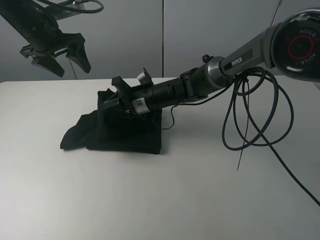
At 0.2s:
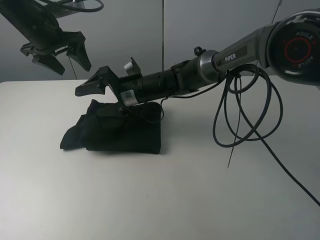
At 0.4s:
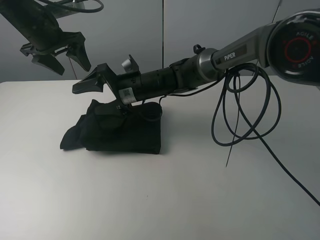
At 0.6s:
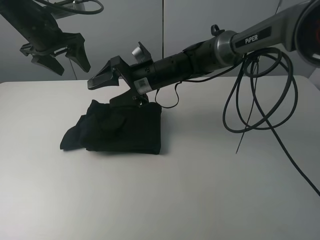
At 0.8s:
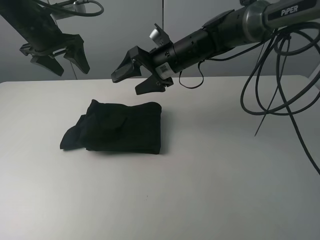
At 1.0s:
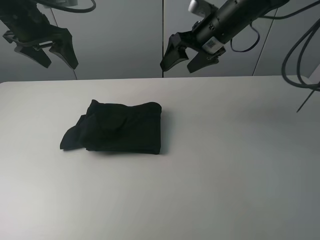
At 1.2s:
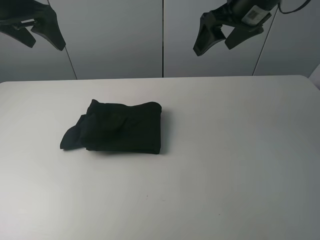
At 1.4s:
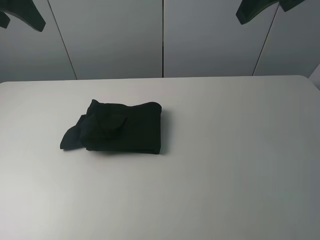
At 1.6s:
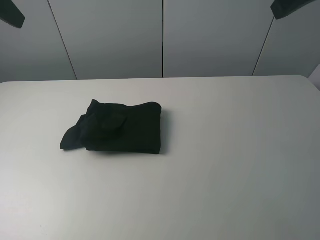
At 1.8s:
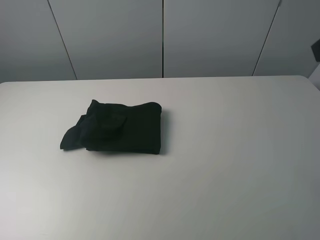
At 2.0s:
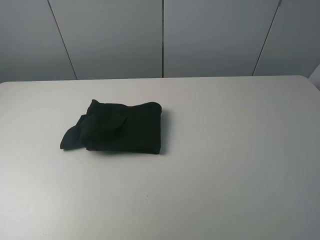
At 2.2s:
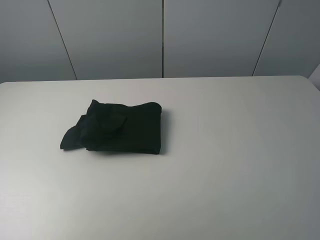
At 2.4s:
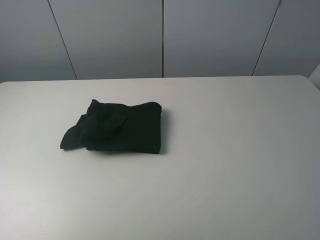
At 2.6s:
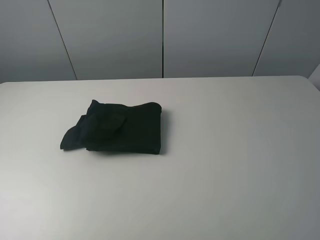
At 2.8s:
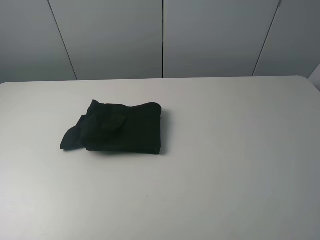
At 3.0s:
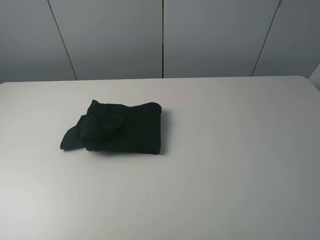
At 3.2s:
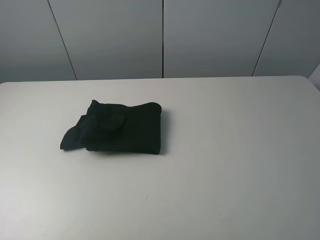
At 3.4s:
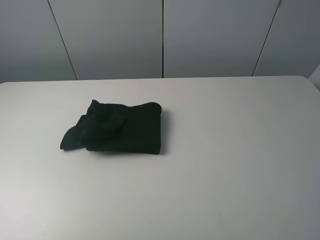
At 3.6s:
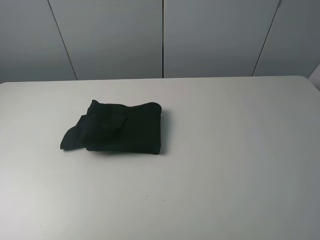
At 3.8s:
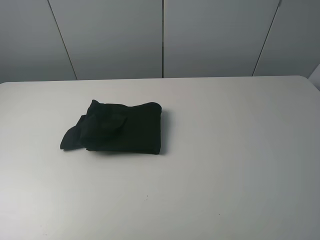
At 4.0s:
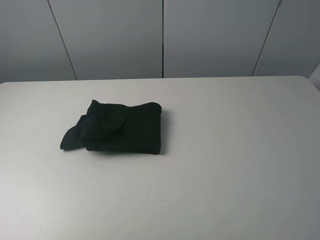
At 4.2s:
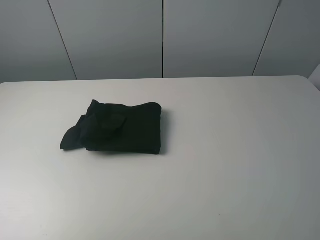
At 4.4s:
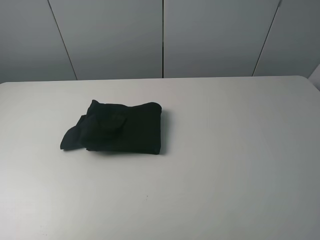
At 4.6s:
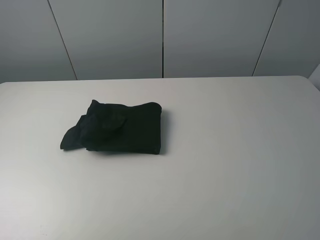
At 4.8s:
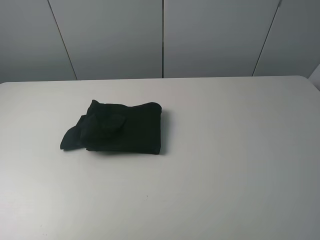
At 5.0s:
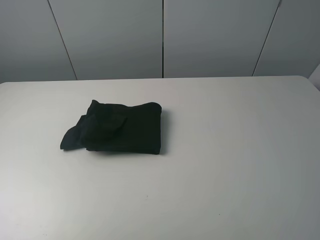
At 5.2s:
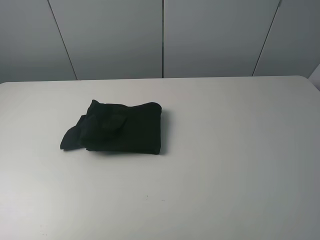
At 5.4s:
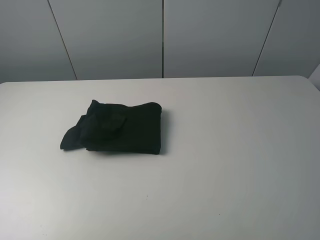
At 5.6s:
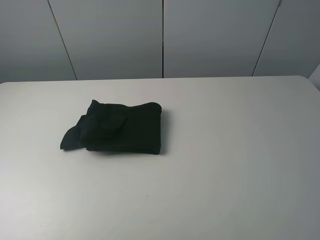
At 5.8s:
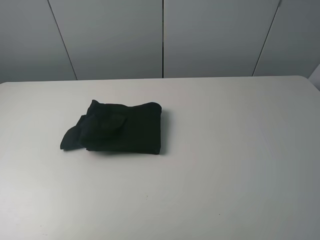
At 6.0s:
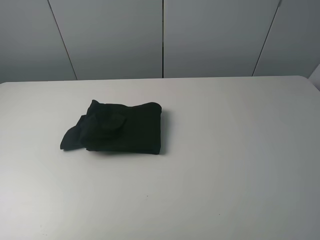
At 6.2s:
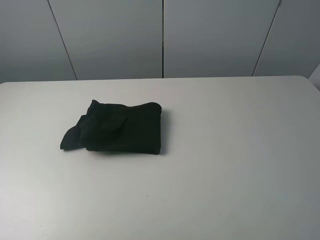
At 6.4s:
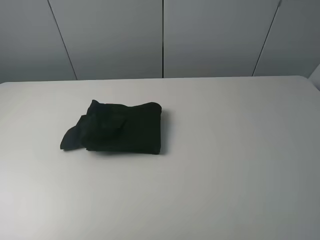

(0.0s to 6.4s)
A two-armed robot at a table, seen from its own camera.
Task of the whole recording: fold the clothes on the table.
0.0s - 1.6s: The right gripper travels upward, to the right and backward by roughly 40 cm, and opens, while the left gripper shifts some 20 cm backward and upward.
1.6s - 3.2s: Both grippers move backward and downward, approximately 25 cm.
4.8s - 6.4s: The two grippers keep their place.

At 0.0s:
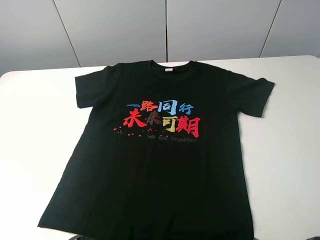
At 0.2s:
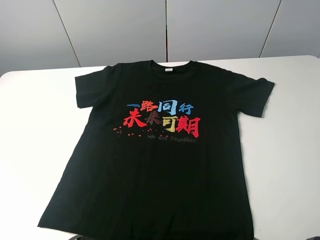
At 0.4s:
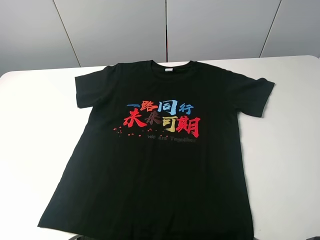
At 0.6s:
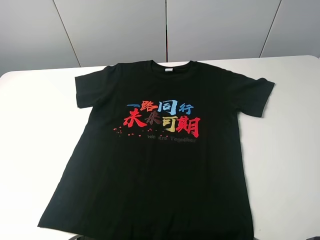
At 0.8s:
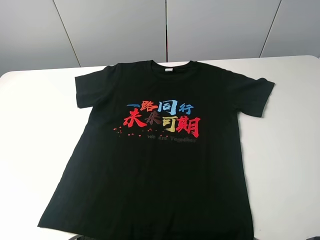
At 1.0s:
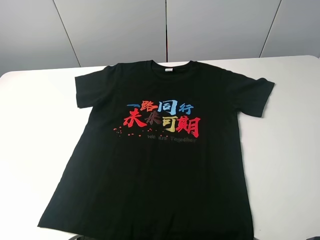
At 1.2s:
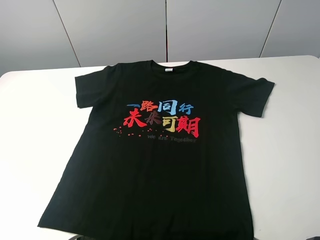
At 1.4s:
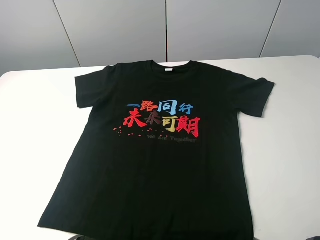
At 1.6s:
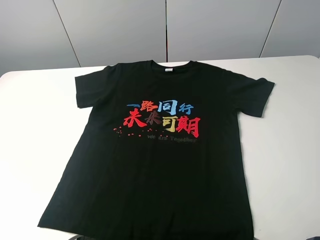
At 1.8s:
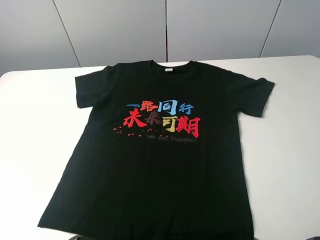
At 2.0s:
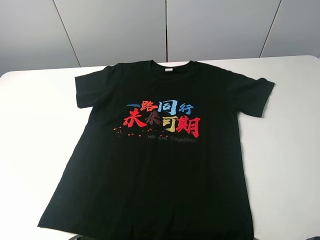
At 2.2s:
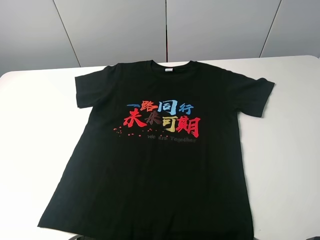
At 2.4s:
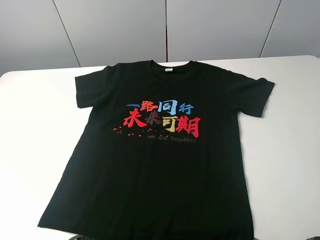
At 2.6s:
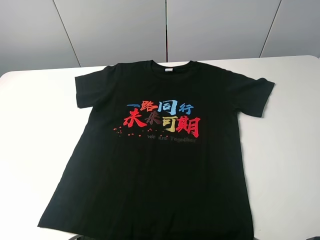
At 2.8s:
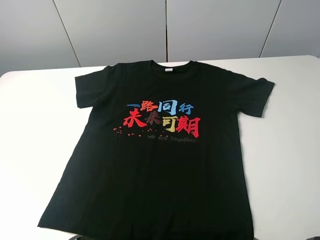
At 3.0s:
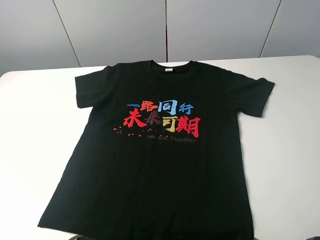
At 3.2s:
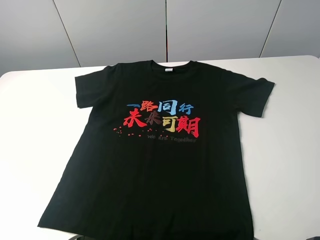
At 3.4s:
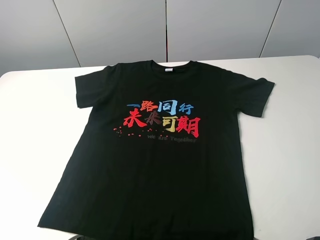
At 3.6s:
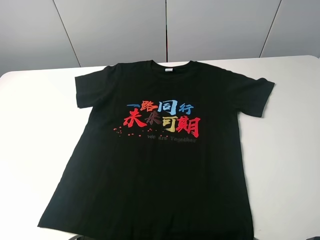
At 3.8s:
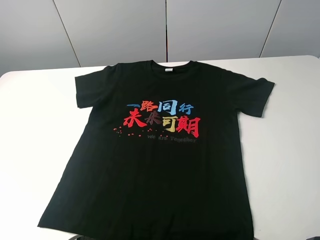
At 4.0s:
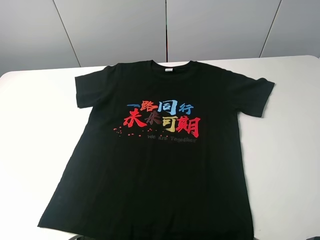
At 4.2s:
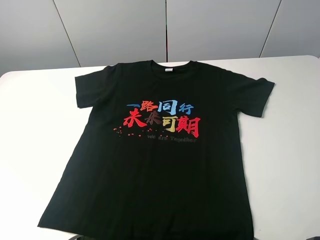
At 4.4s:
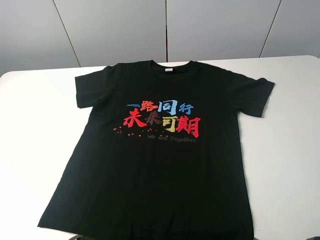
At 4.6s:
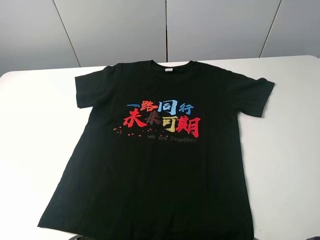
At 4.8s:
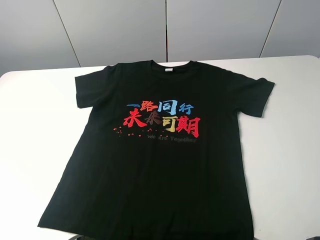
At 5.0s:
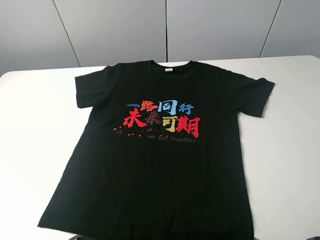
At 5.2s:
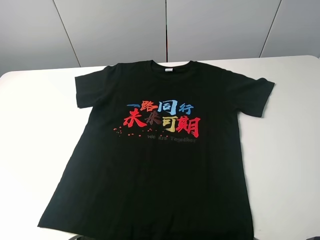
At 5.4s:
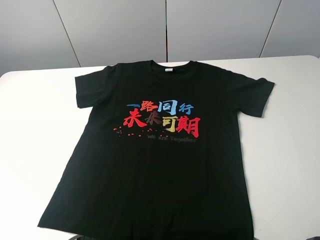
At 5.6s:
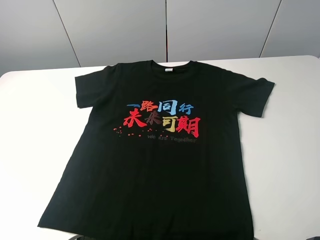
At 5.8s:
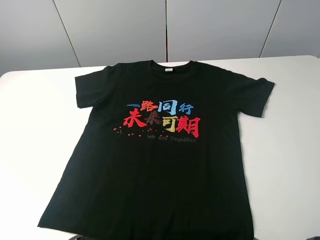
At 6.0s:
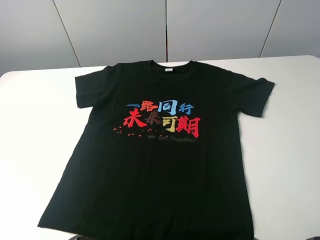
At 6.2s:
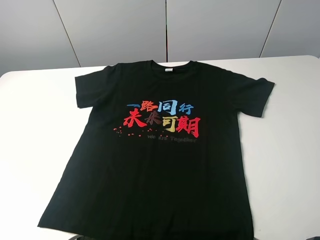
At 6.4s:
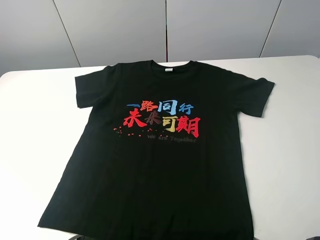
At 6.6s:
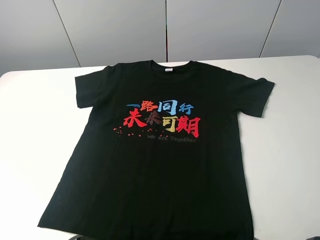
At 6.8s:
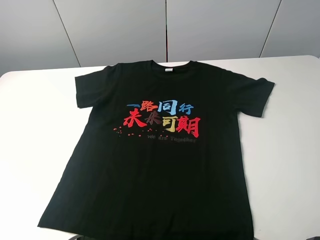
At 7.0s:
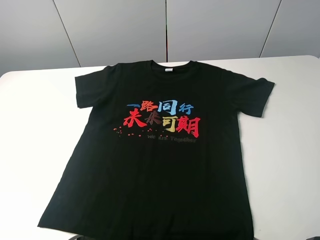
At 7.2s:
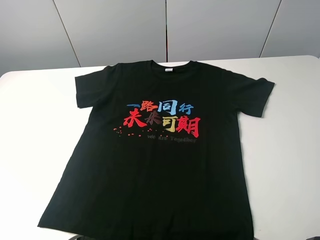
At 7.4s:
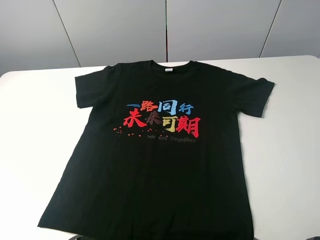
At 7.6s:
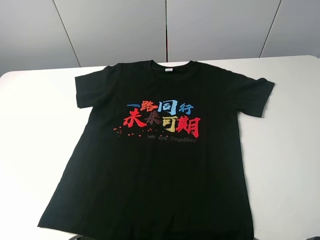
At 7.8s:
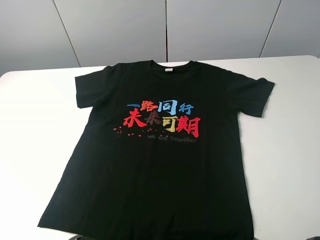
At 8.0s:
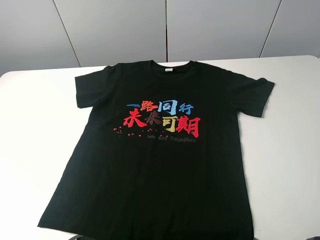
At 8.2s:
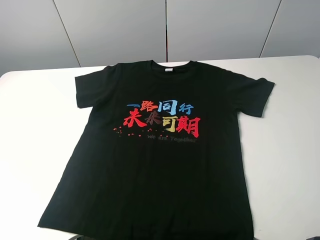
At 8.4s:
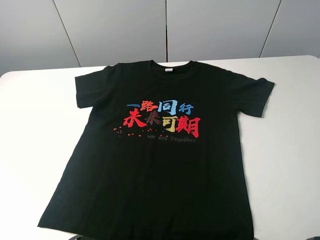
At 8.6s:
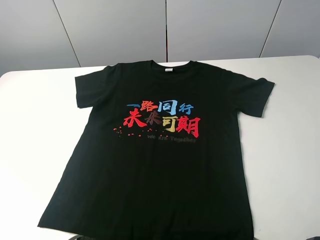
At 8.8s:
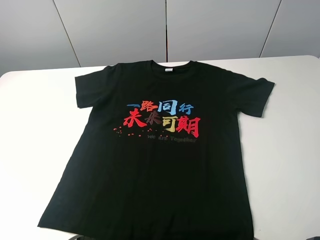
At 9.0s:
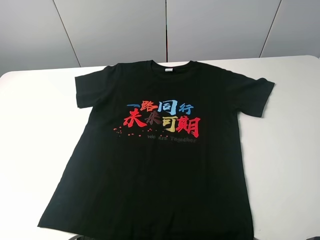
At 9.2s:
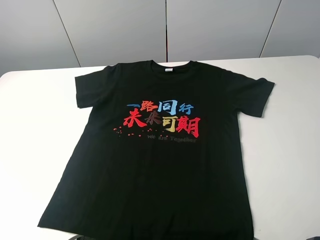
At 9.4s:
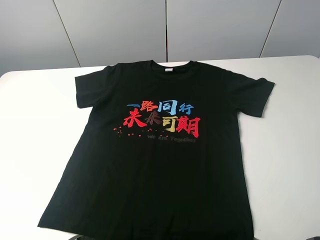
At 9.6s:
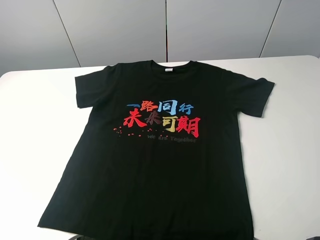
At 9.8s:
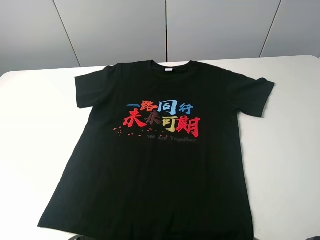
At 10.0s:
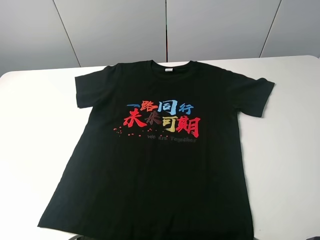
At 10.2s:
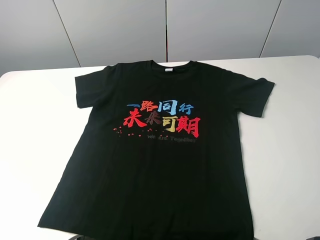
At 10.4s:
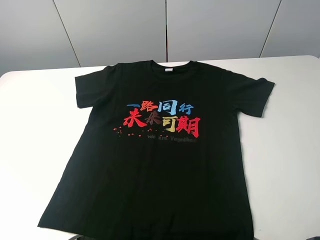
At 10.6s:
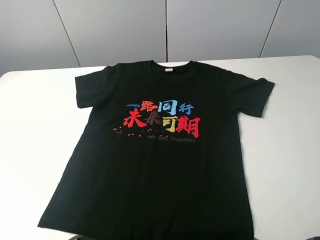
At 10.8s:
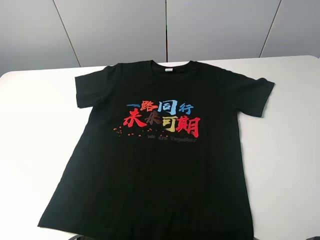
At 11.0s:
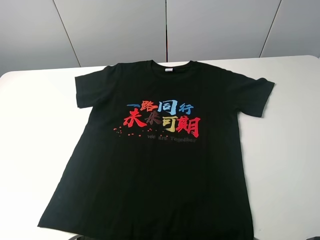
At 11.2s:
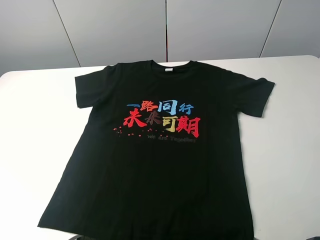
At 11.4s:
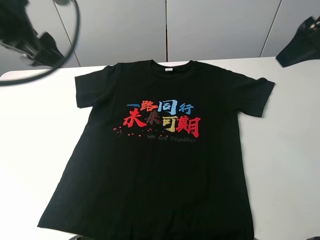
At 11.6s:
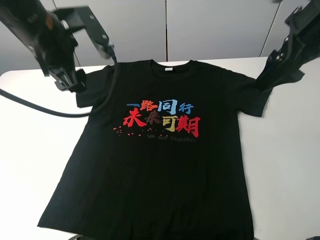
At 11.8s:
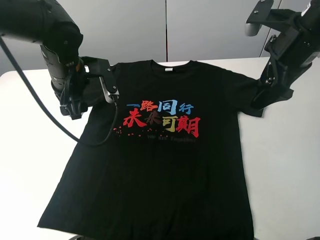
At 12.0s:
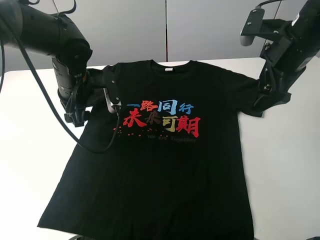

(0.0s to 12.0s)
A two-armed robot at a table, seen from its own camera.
Task of the whole recording: fold the clothes on the table.
0.0s - 10.4s: Neither gripper changes place.
10.4s - 12.0s: The right gripper shifts about 30 cm forward, while the left gripper moves forward, to the right and downward, about 40 cm.

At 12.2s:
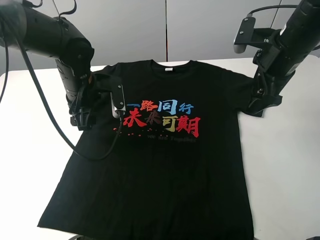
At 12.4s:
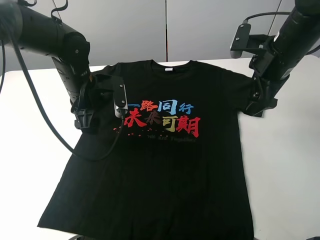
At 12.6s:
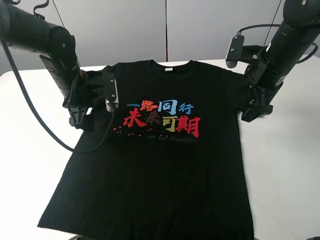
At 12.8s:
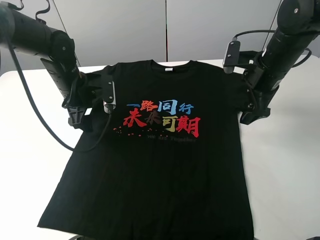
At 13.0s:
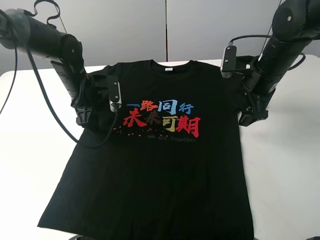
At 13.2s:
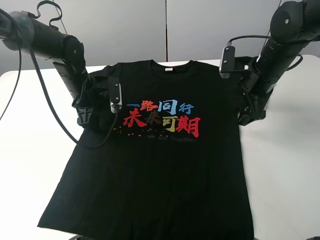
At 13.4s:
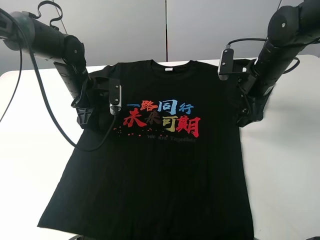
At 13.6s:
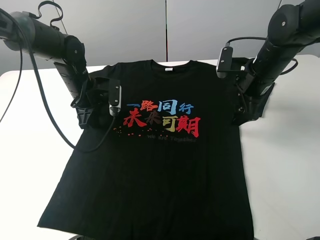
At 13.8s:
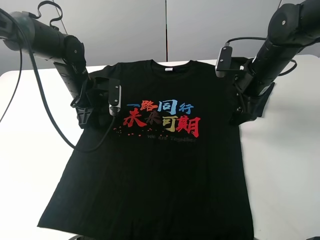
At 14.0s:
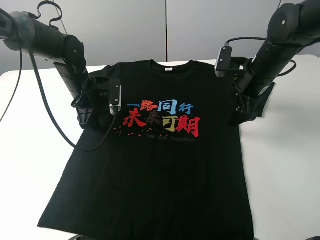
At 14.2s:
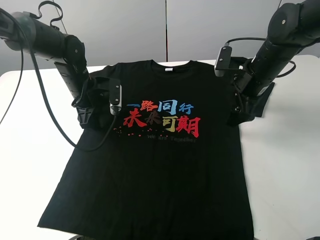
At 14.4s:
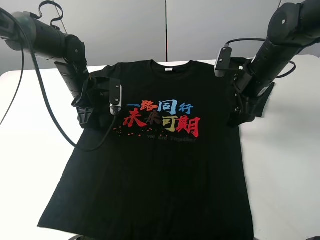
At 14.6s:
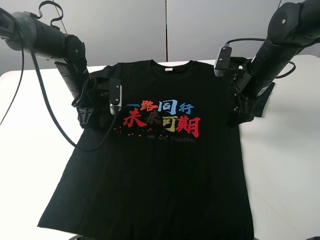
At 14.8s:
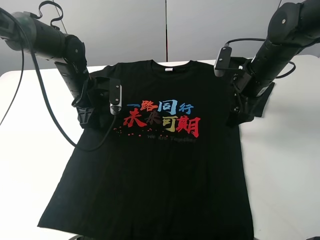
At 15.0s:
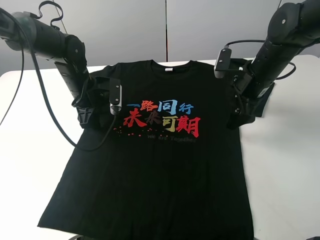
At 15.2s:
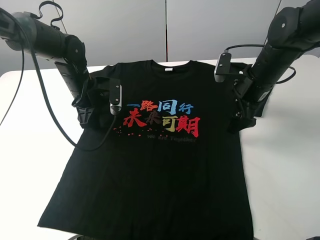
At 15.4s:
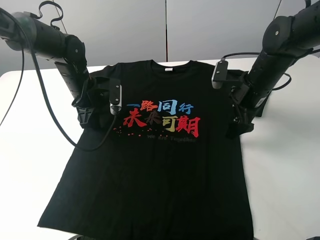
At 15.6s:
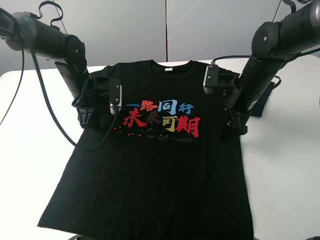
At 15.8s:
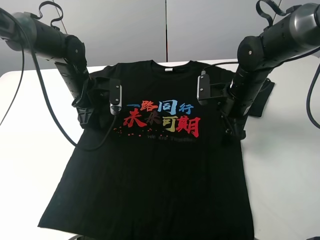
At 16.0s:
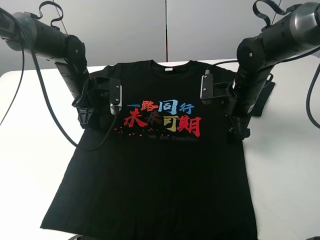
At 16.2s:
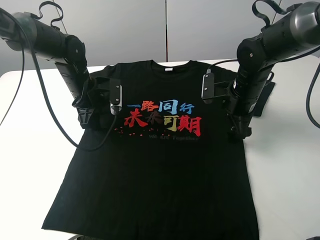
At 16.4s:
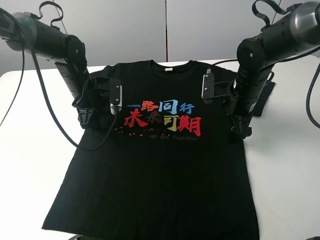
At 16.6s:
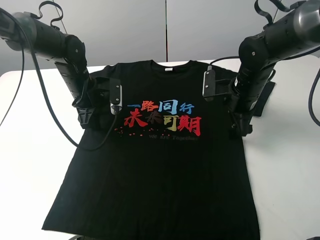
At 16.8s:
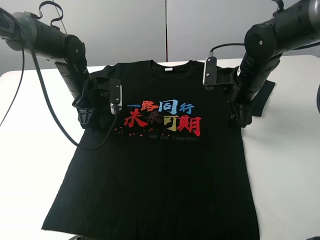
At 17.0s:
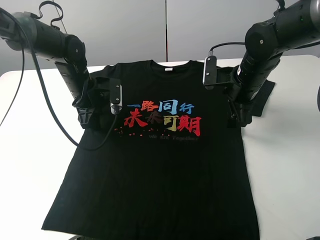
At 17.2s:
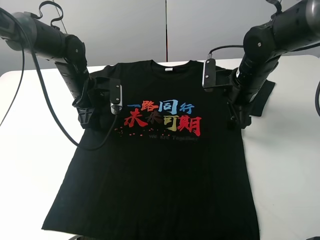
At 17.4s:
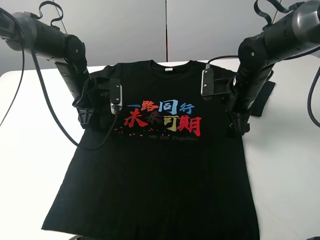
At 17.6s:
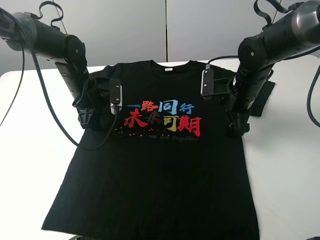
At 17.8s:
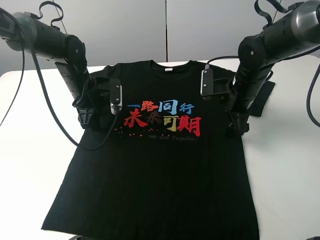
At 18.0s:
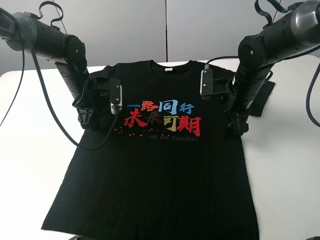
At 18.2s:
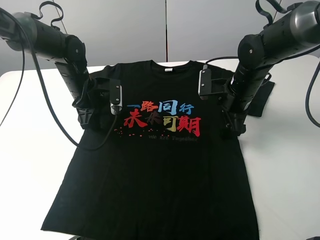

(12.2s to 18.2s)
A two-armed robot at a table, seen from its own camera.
Task of the whole recording: fold the clothes on the table.
12.2s - 13.8s: The right gripper is displaced downward by about 5 cm. The left gripper changes place by approximately 5 cm.
13.8s - 18.2s: The grippers make only small movements.
